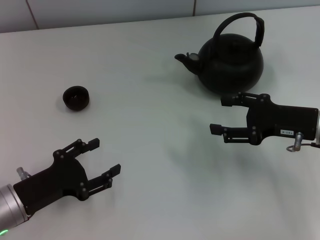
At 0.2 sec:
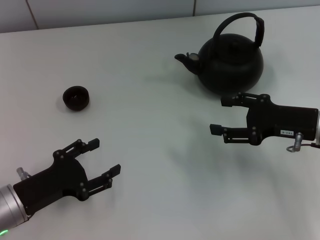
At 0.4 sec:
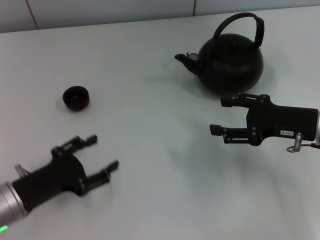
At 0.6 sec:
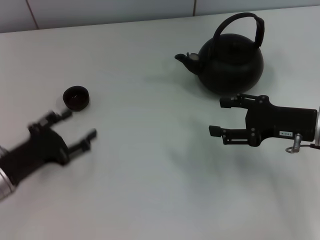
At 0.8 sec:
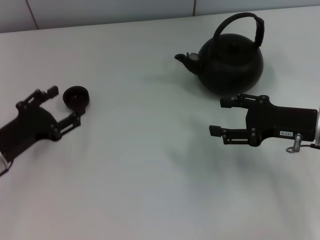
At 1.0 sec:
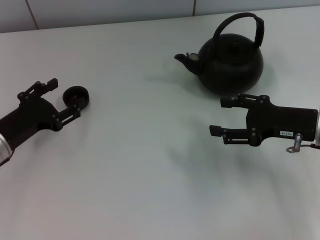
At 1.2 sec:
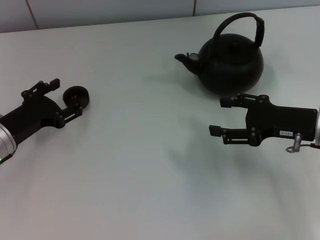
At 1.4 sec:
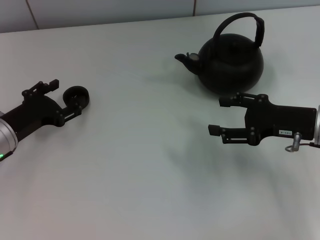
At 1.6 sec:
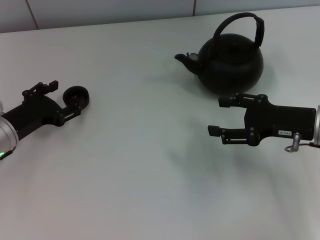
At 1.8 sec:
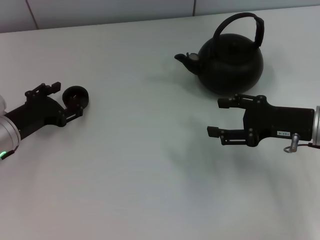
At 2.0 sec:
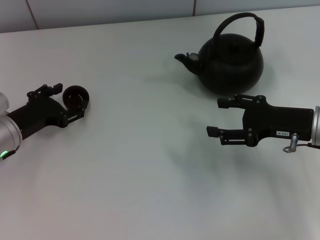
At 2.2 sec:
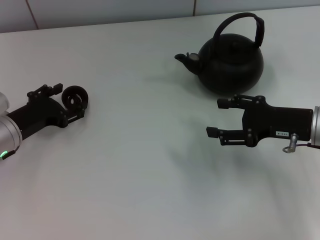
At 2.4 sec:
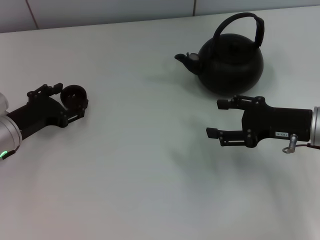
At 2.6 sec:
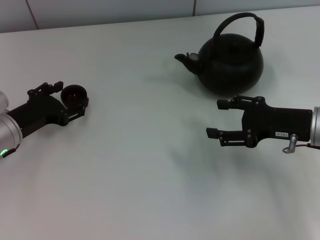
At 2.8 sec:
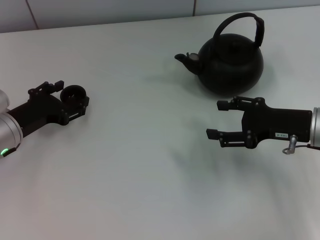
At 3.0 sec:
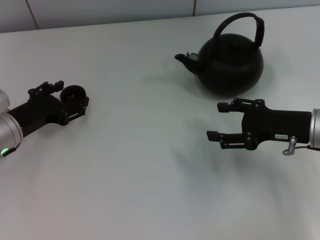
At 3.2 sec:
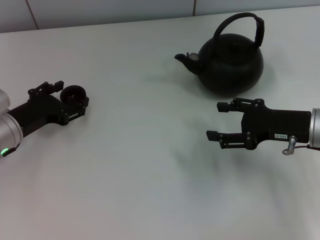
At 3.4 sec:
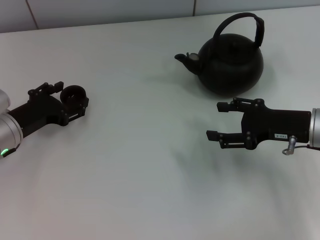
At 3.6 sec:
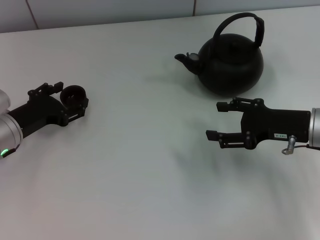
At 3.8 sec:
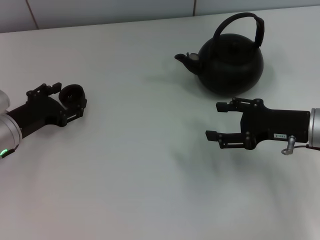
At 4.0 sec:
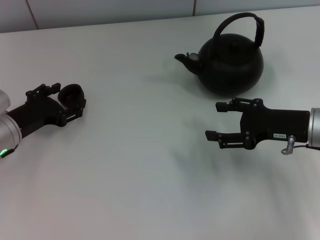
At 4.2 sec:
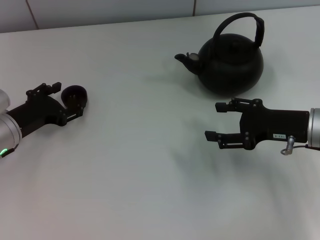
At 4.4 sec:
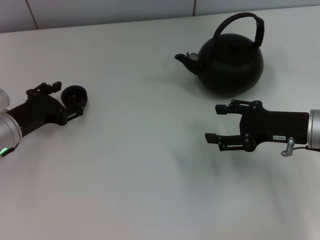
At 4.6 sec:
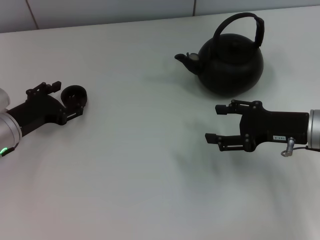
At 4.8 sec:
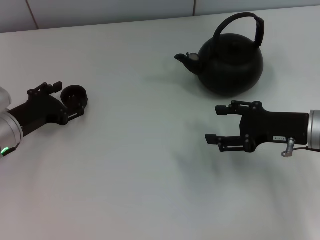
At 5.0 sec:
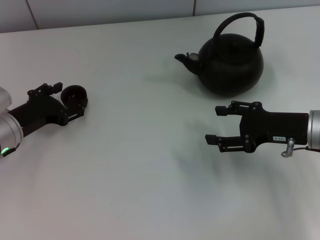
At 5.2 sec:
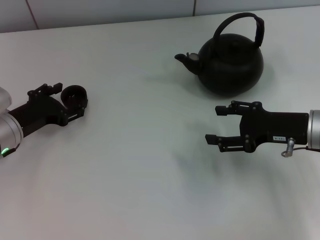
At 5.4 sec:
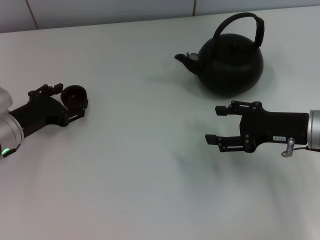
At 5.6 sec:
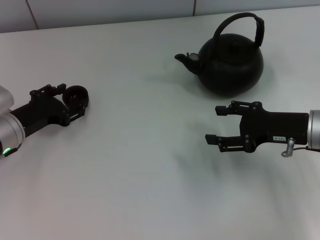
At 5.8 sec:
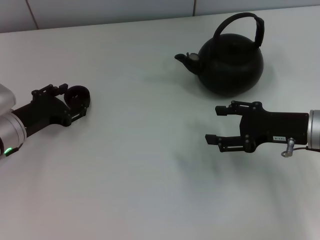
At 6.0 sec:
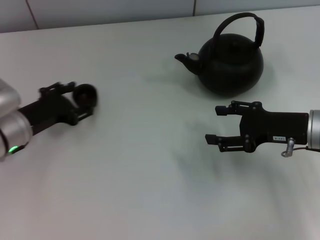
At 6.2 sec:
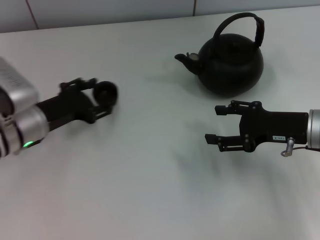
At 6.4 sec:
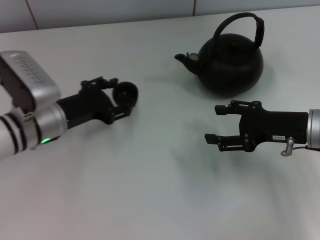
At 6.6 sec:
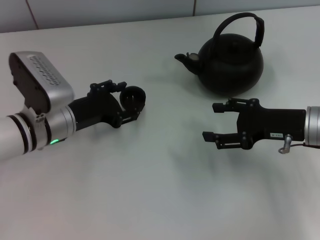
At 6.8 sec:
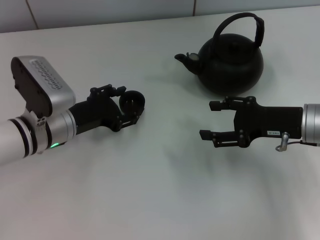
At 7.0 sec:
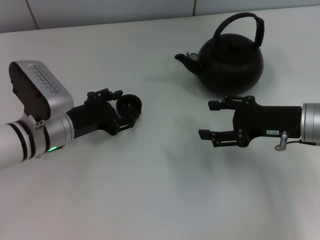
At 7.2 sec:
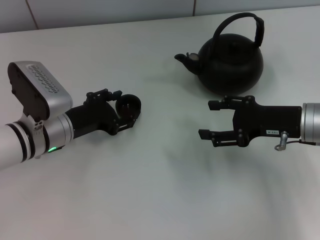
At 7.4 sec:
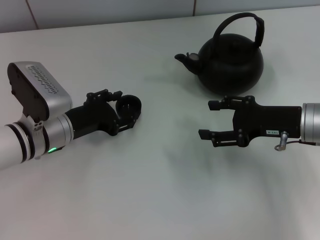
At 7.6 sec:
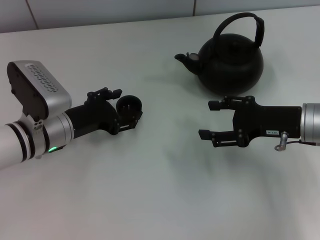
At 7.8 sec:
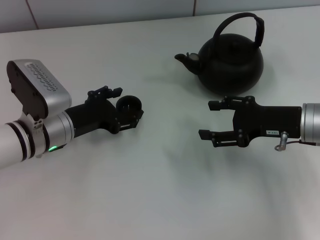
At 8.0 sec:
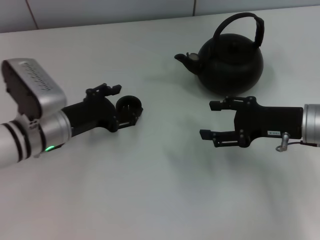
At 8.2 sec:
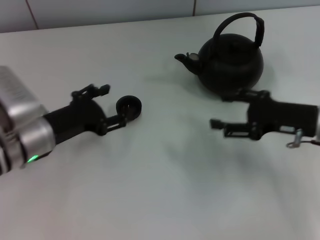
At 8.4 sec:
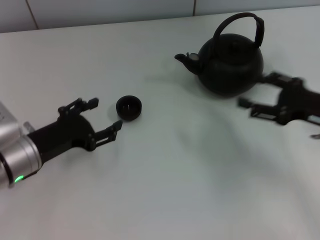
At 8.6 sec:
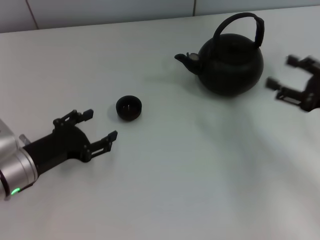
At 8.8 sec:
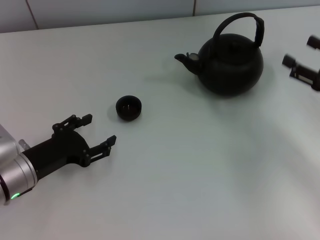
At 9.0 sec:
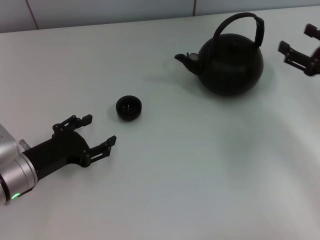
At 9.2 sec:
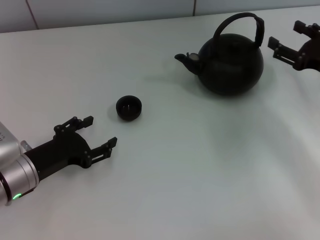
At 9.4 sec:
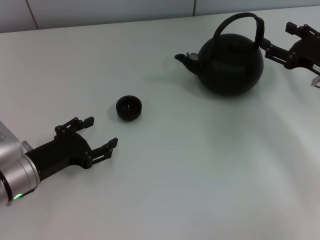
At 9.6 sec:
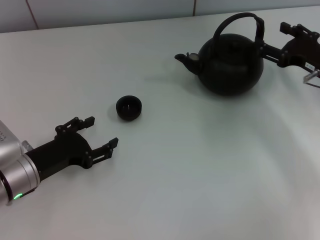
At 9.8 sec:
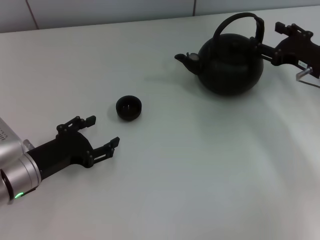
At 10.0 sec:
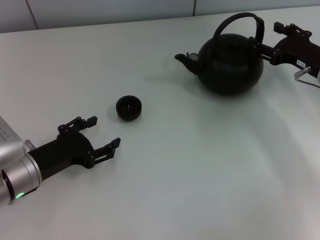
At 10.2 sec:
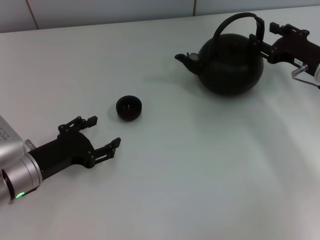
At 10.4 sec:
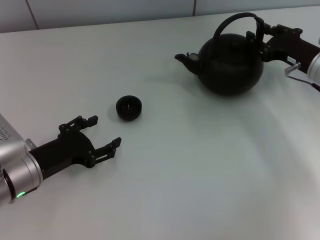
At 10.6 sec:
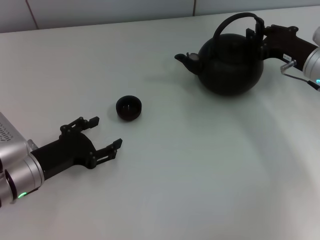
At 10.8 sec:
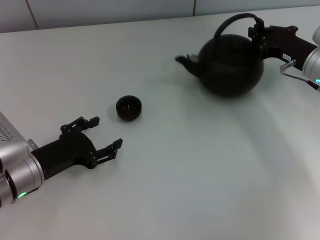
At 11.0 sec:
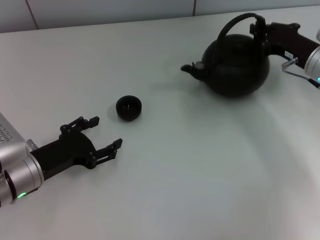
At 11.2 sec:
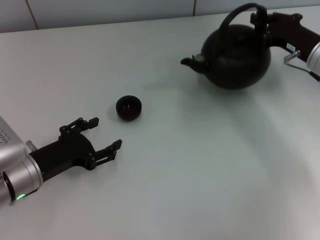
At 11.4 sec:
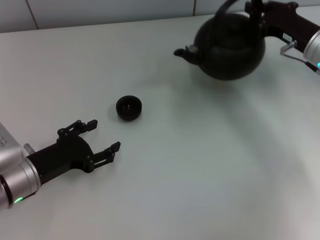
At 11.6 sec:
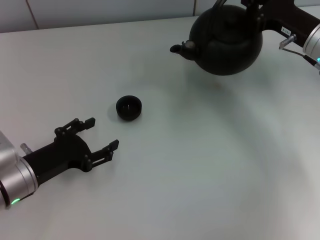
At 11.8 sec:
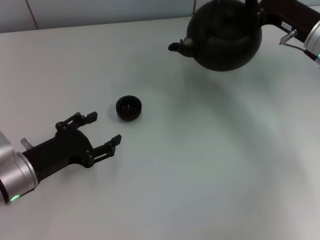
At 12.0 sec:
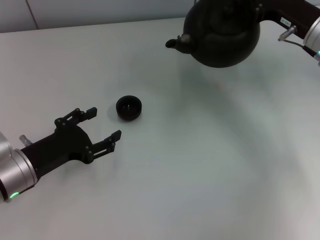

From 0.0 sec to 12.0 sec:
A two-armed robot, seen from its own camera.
Task of the whole recording: Grasp the handle of the teapot with one hand and pour tea into the teacup.
Step, from 0.0 sec to 6.2 sec: Pick up the teacup with the left gripper.
Step, from 6.4 sec to 8.4 sec: Place the teacup in the center of view with the left gripper.
Step, from 8.6 sec to 11.6 sec: Pick up the teapot with the right gripper.
From 0.0 sec to 1.6 sec: The left gripper goes roughly 10 cm forward.
From 1.6 sec to 4.4 sec: Neither gripper changes place.
From 4.4 sec to 6.0 sec: The left gripper closes.
From 6.0 sec to 7.6 sec: The left gripper is displaced to the right by some 5 cm, and opens up.
From 7.6 sec to 9.0 sec: The left gripper shifts some 10 cm backward and to the left. The right gripper moves to the right, about 10 cm.
From 9.0 sec to 10.4 sec: The right gripper is displaced forward by some 5 cm.
From 10.4 sec to 12.0 sec: The right gripper heads upward, covering approximately 5 cm, and closes up.

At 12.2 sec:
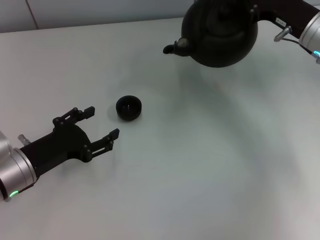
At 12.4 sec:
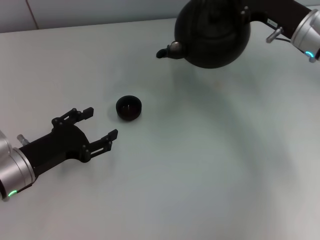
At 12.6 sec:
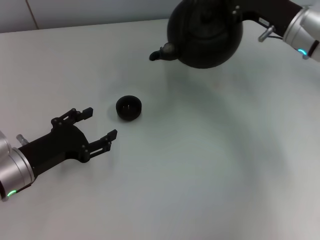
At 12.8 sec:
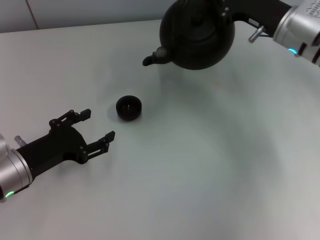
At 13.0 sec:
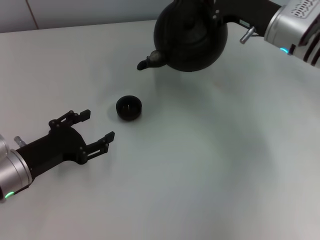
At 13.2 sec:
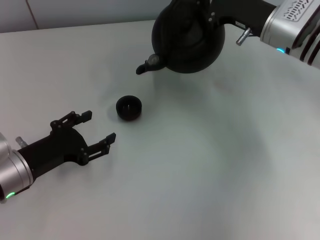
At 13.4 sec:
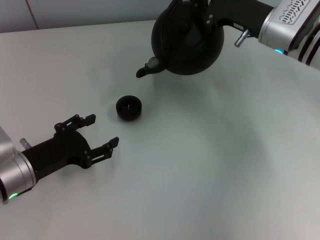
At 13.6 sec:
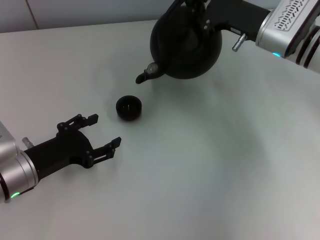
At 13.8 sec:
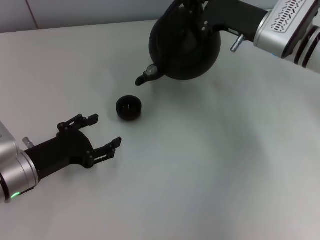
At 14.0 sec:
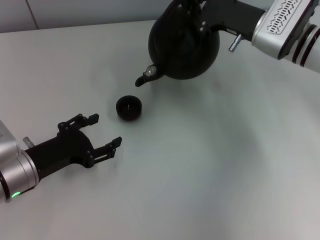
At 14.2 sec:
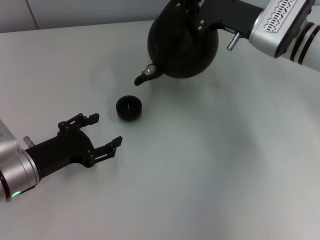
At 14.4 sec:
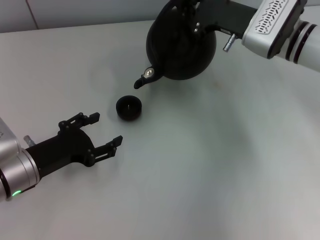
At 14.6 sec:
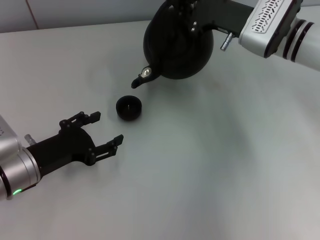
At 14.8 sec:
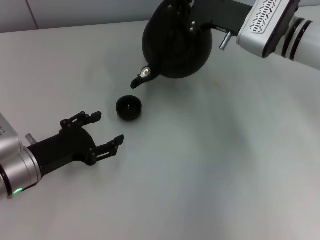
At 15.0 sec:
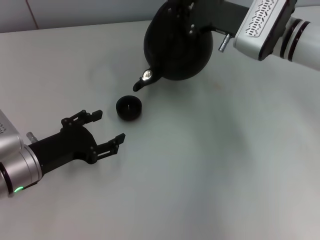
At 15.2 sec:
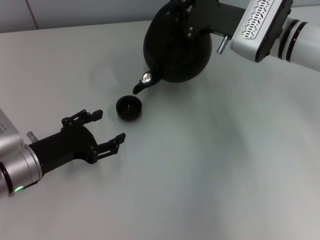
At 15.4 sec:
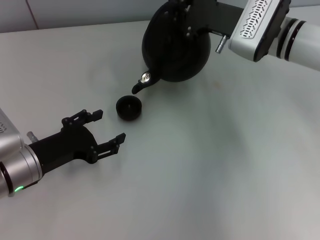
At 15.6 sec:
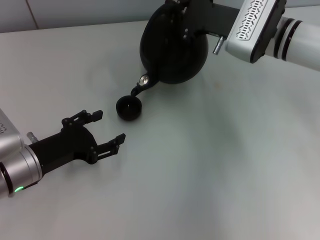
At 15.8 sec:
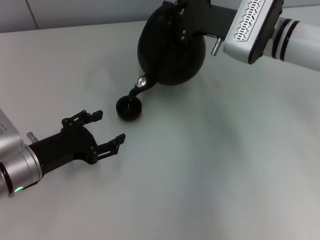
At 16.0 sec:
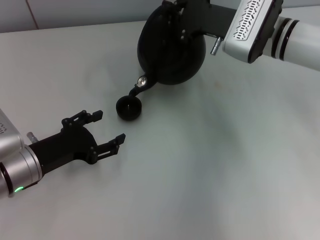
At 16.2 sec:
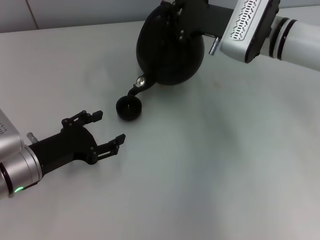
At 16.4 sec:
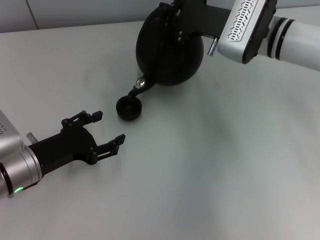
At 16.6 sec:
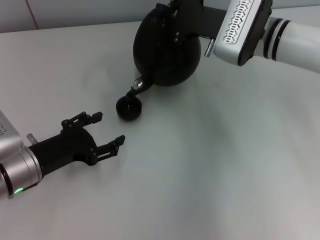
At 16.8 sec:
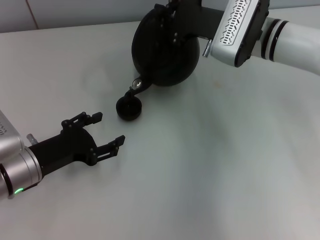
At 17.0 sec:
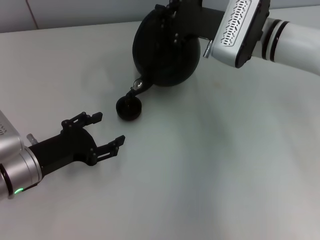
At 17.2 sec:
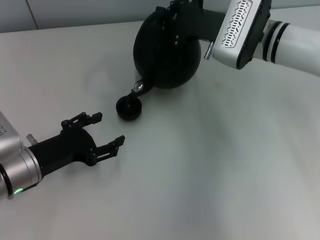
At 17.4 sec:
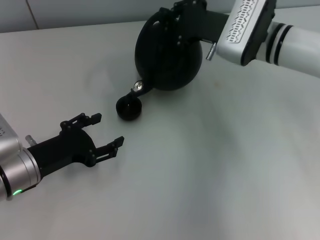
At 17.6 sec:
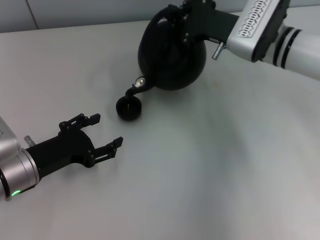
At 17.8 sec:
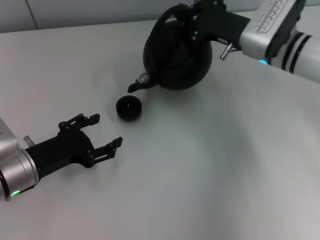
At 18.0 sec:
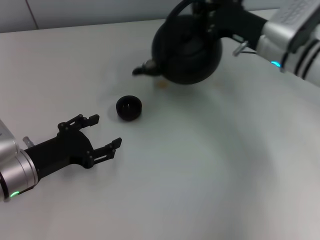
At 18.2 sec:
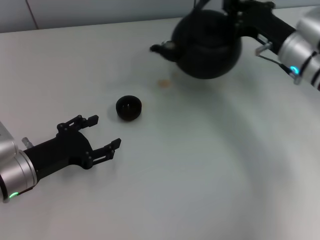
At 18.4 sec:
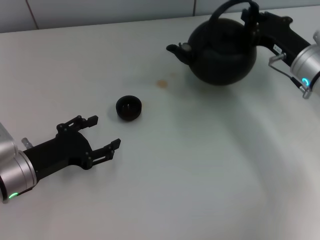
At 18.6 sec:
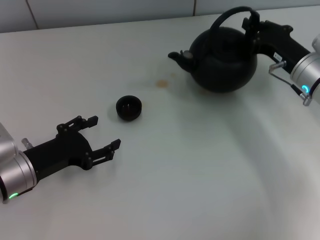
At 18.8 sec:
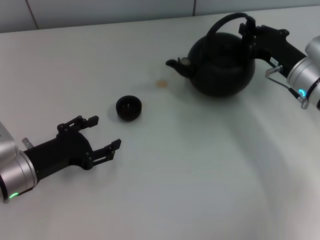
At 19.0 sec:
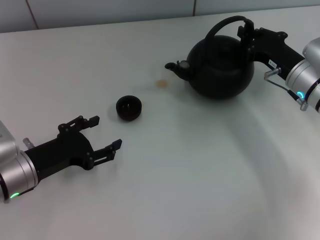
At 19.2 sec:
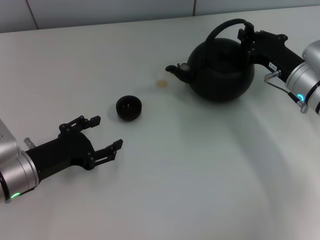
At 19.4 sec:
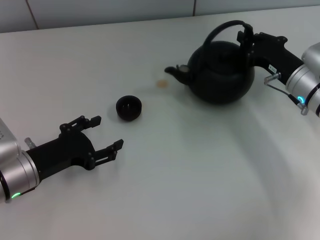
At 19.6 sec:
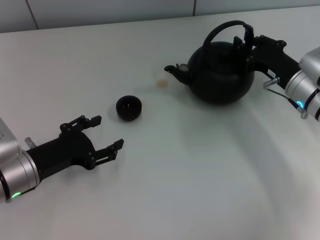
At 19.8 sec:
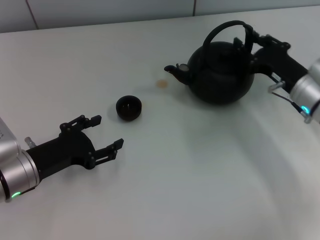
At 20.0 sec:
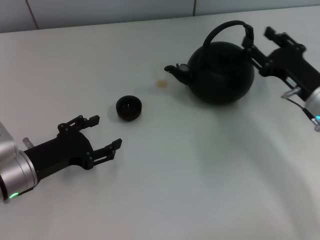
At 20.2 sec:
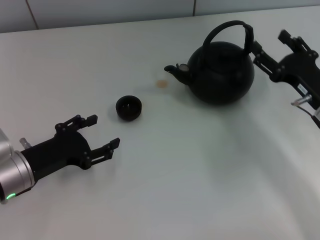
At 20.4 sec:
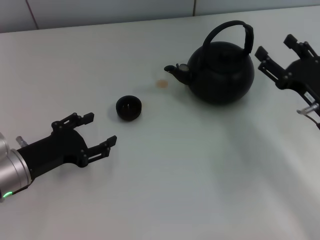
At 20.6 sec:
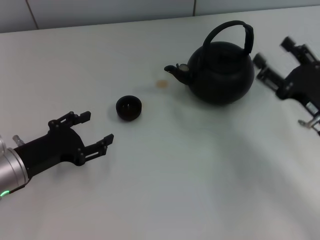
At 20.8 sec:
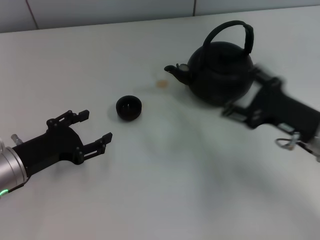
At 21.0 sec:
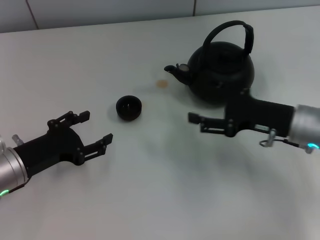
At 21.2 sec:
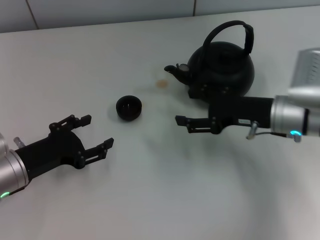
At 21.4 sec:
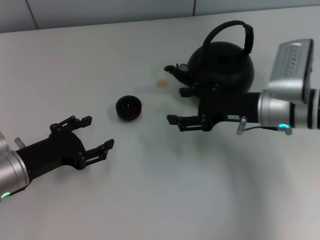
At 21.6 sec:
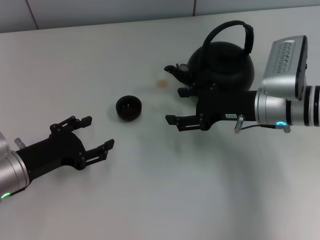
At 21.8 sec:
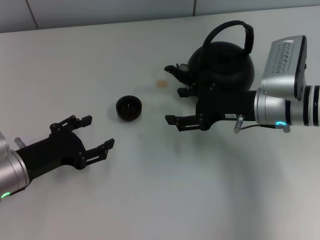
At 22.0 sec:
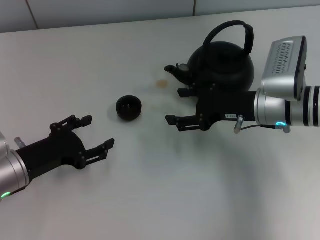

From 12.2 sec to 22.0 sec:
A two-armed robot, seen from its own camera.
Task of the whole recording: Grasp the handle of the teapot with one hand and pour tea into the teacup.
Step, from 18.0 sec to 19.8 sec: Put down the teapot with the right gripper.
From 12.2 sec to 13.6 sec: The right gripper goes about 5 cm to the left.
From 13.6 sec to 17.8 sec: The grippers stay close to where they were, moving slightly.
From 17.8 sec to 19.2 sec: The right gripper is displaced to the right, downward and backward by approximately 10 cm.
From 19.2 sec to 20.6 sec: The right gripper shifts roughly 10 cm backward, and opens up.
From 20.6 sec to 22.0 sec: The right gripper is displaced forward and to the left by approximately 10 cm.
